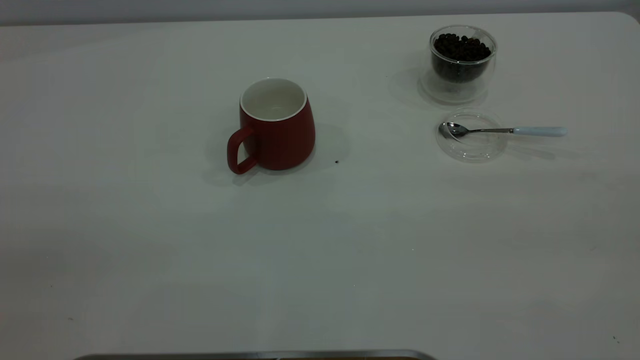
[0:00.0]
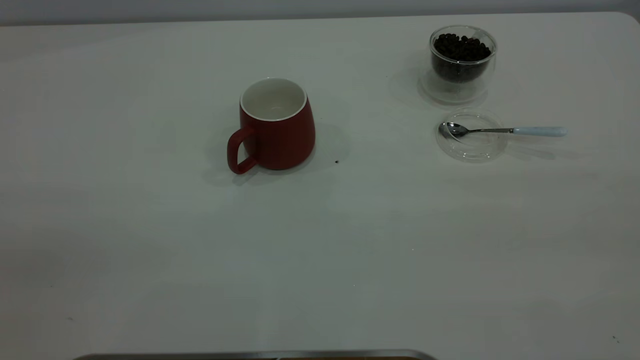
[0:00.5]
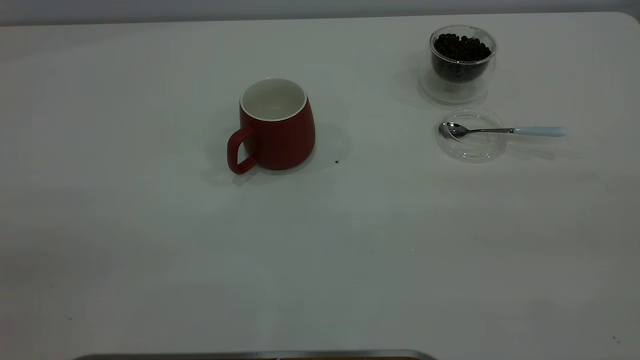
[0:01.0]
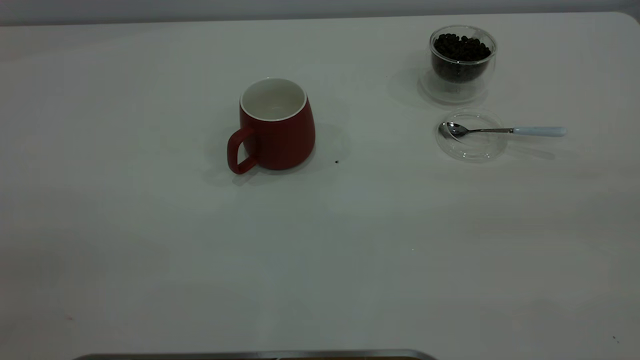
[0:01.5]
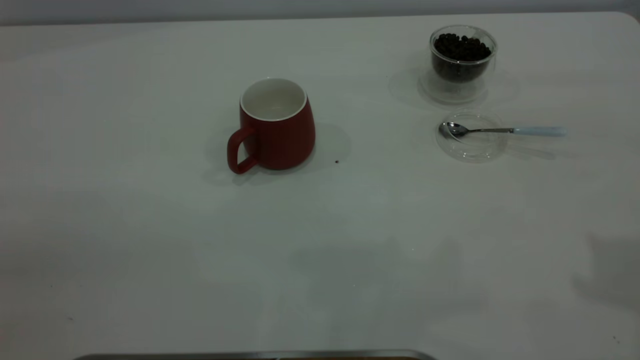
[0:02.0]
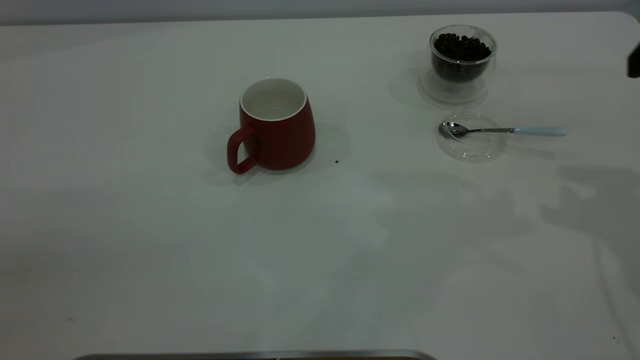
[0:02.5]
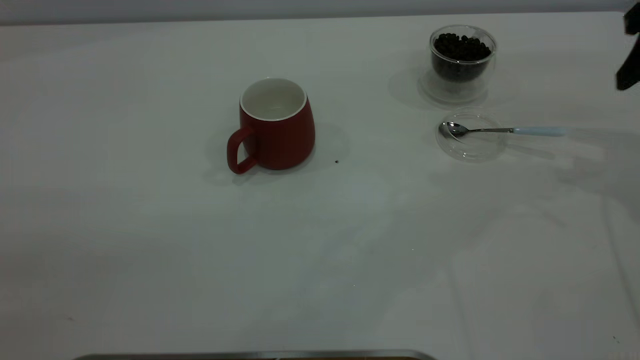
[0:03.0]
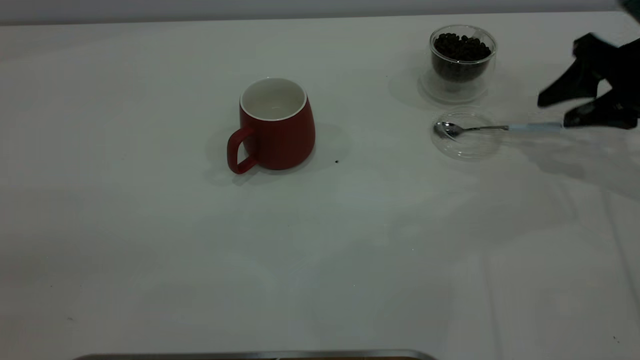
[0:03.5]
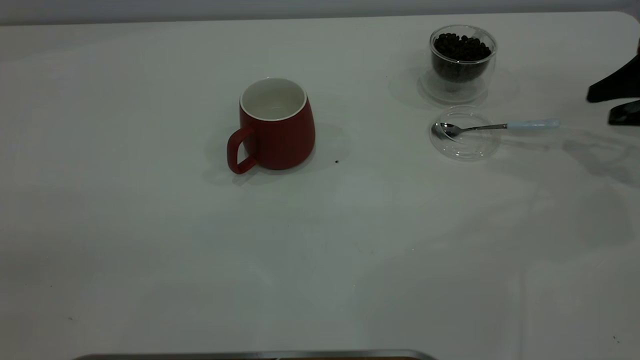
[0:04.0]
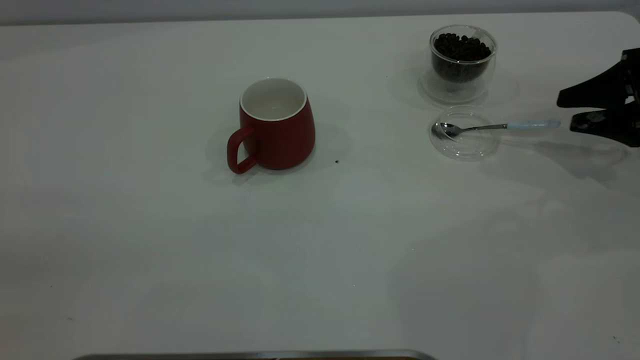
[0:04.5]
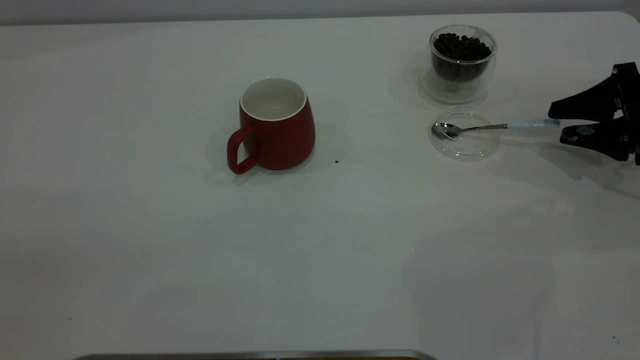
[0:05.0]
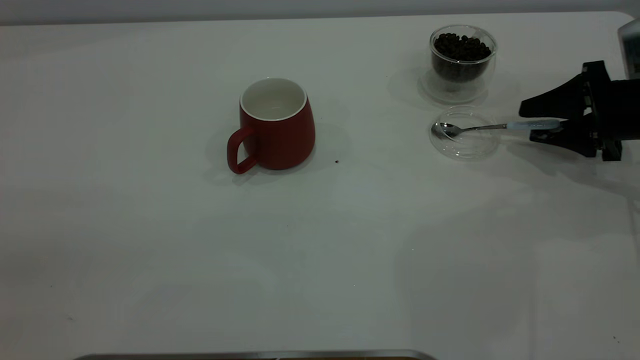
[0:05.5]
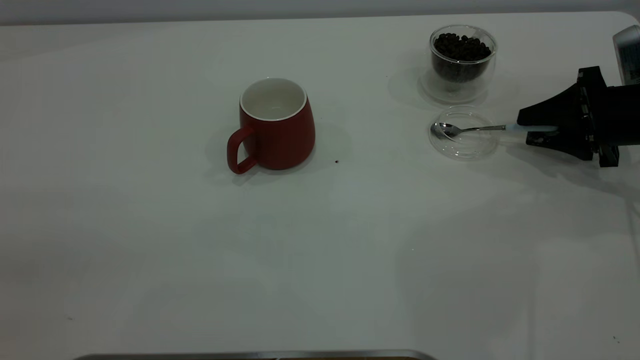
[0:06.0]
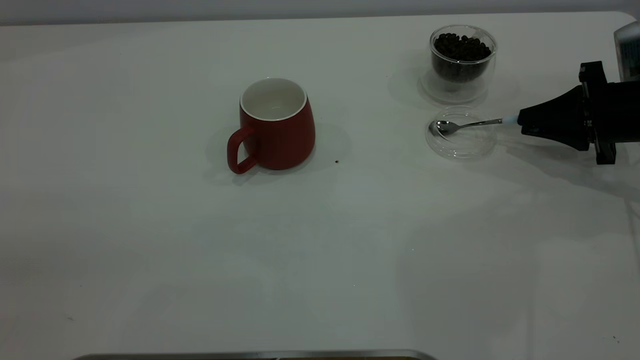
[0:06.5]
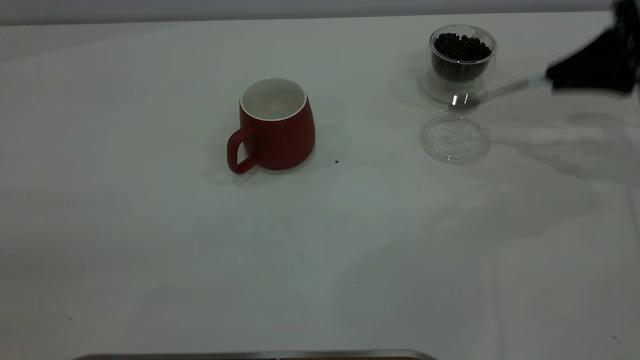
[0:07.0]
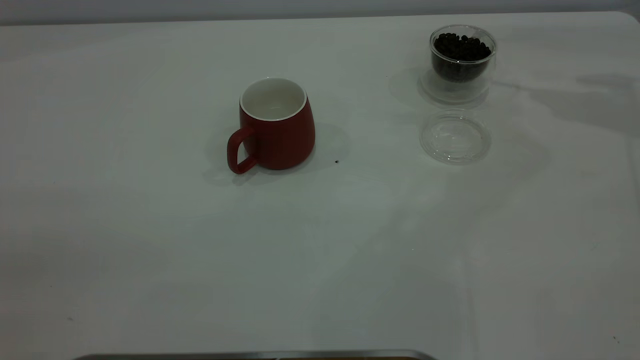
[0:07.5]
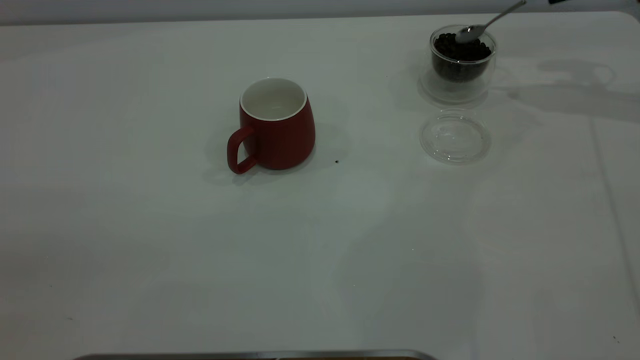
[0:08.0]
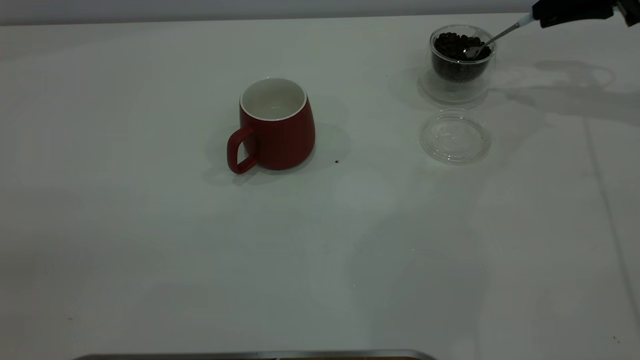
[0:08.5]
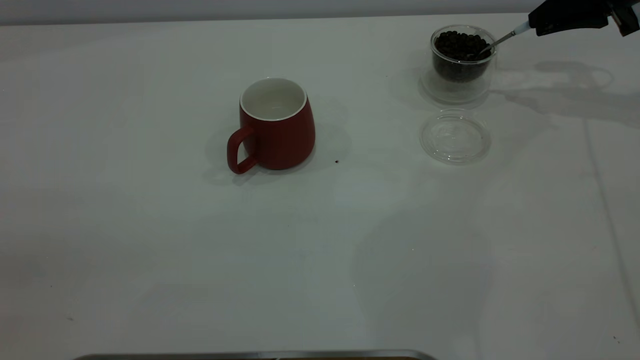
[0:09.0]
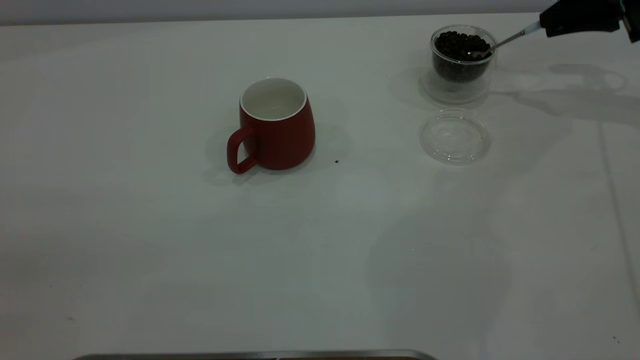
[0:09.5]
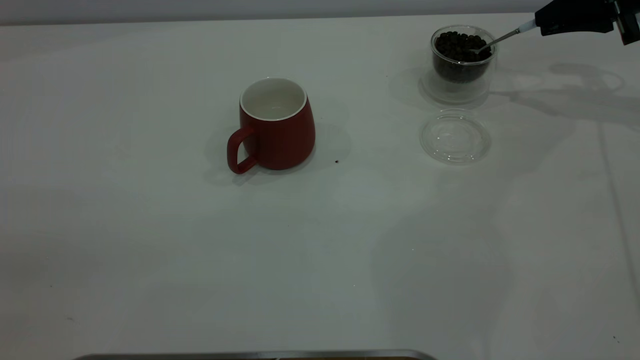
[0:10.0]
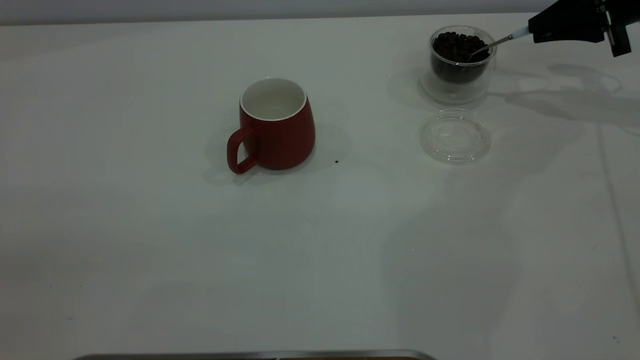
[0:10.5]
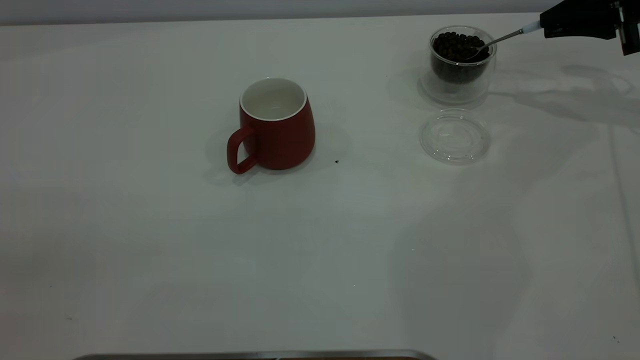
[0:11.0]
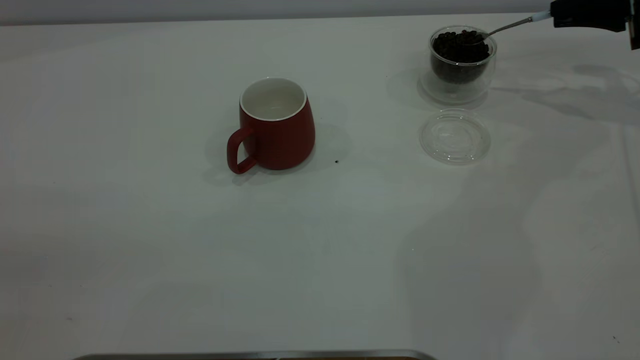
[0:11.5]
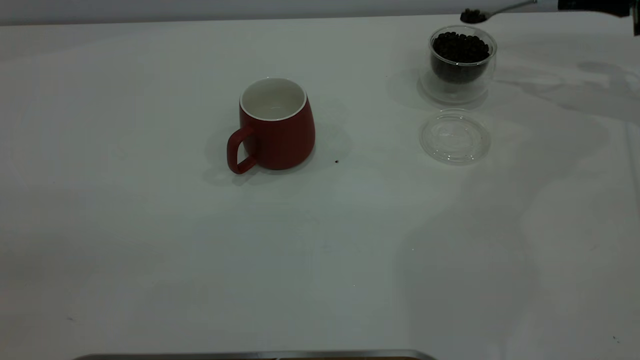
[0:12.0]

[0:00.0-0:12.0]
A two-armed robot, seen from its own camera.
Task of the whole recording: the left gripper place the red cup in the center of the table, the right gripper take the blue spoon from the cup lid and scoop out the coffee beans from the coffee cup and put them into the red cup, the right gripper put the spoon back into the cup lid.
Step, 0:00.0 to 0:06.5: Pick up the spoon.
0:02.0 to 0:04.0: The right gripper goes about 25 cm downward and forward.
0:04.0 to 0:06.0: The right gripper travels downward by about 5 cm.
0:06.0 to 0:08.0: The right gripper moves upward and forward, approximately 20 cm, and closes its fingers.
0:08.0 to 0:12.0: The grippers move only a little.

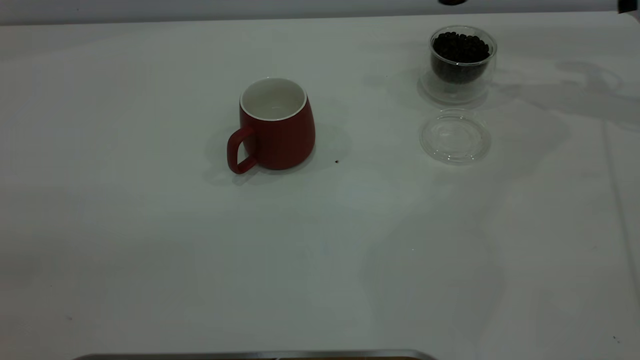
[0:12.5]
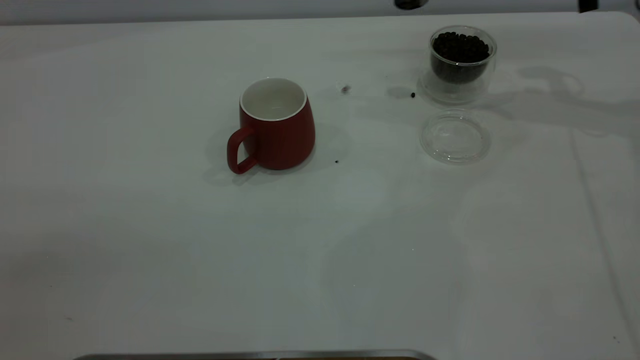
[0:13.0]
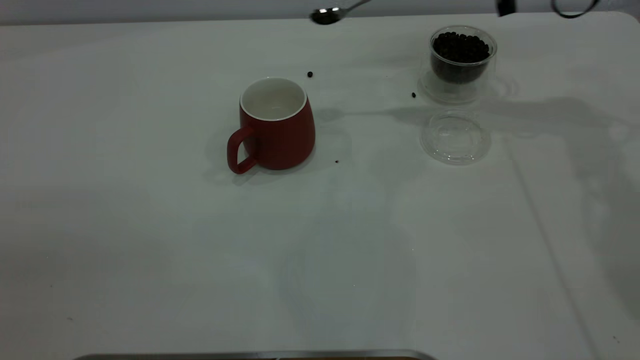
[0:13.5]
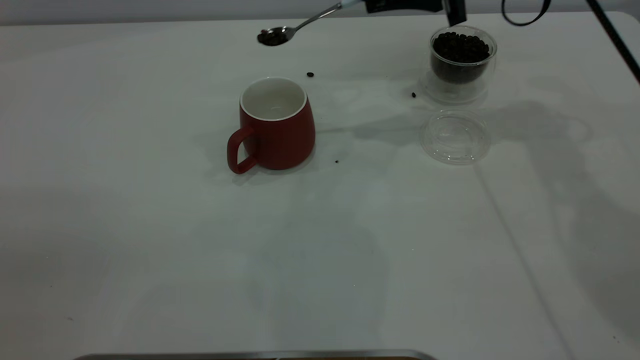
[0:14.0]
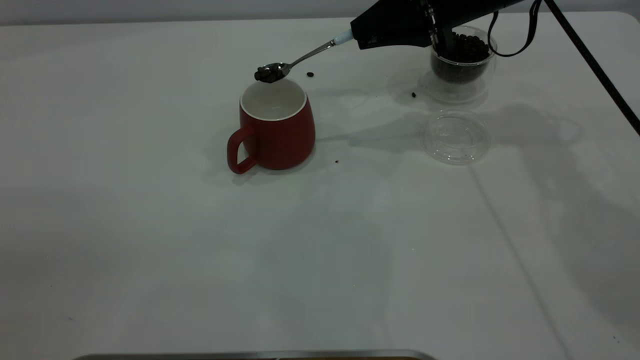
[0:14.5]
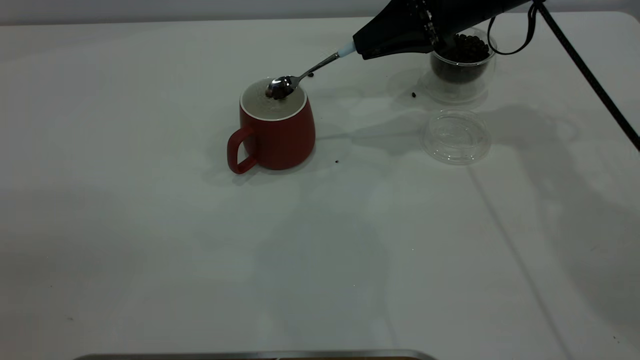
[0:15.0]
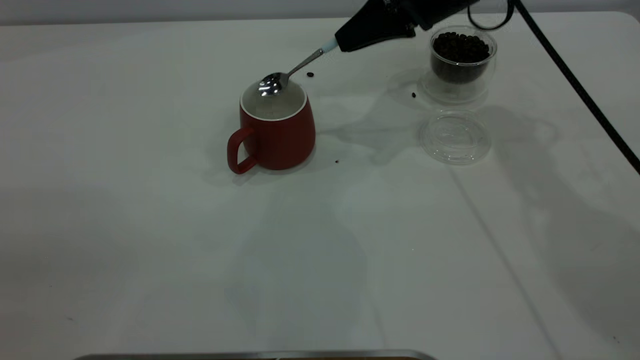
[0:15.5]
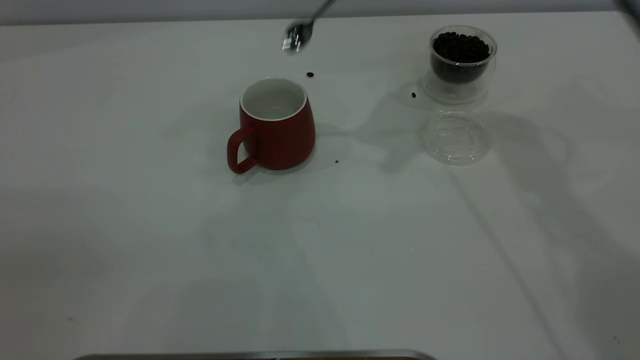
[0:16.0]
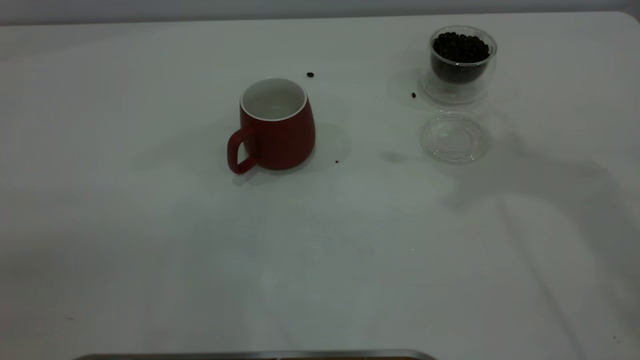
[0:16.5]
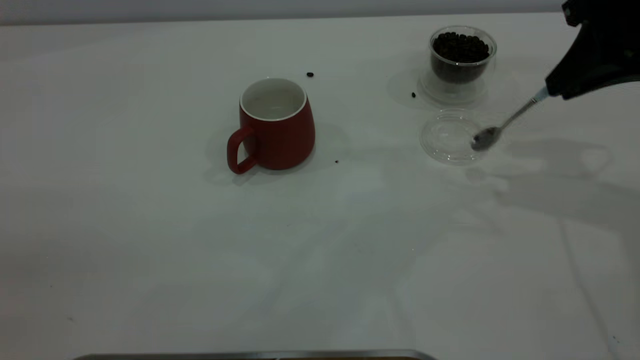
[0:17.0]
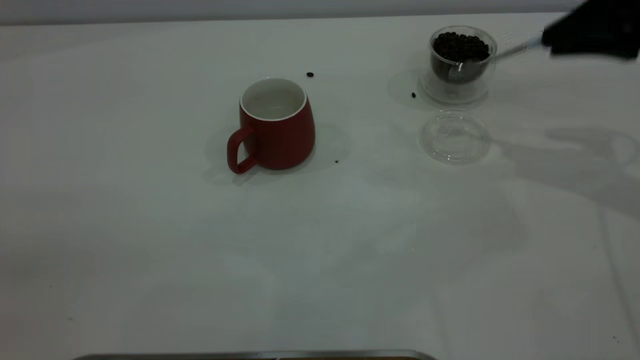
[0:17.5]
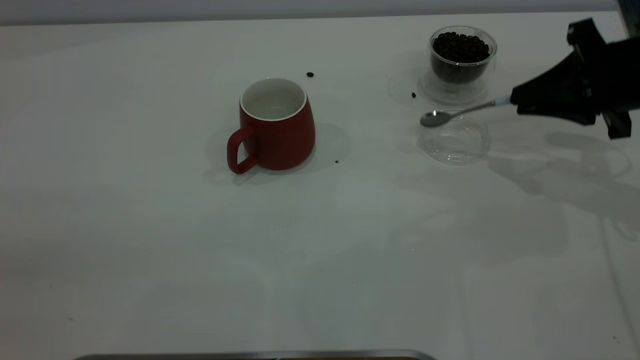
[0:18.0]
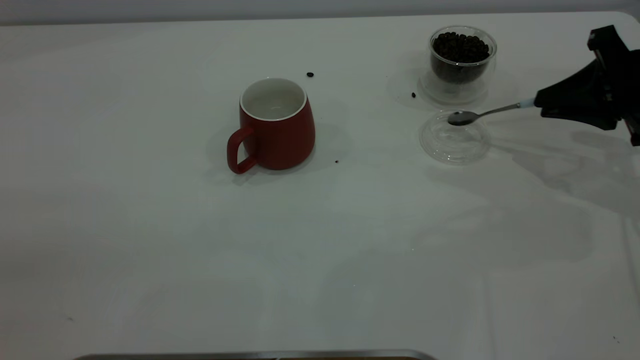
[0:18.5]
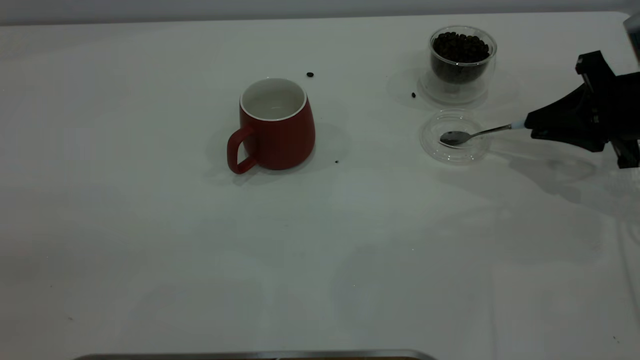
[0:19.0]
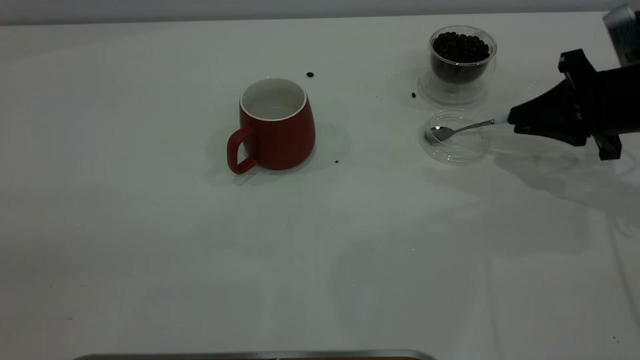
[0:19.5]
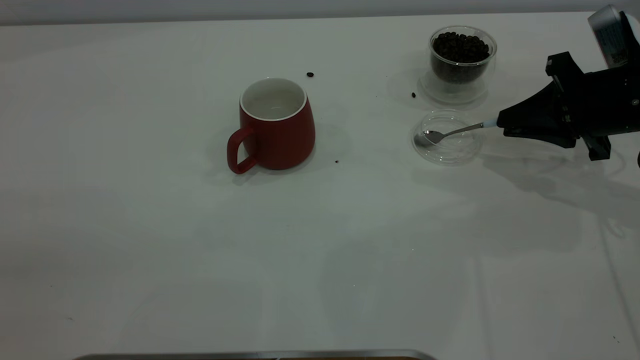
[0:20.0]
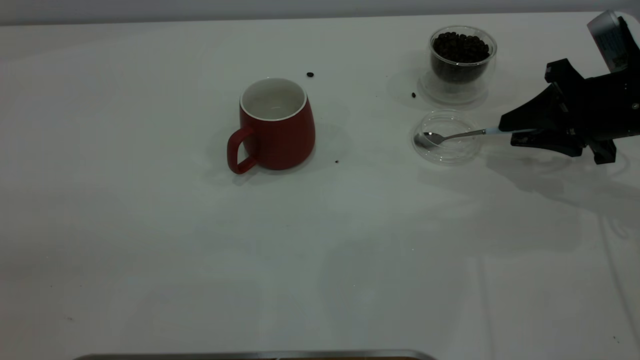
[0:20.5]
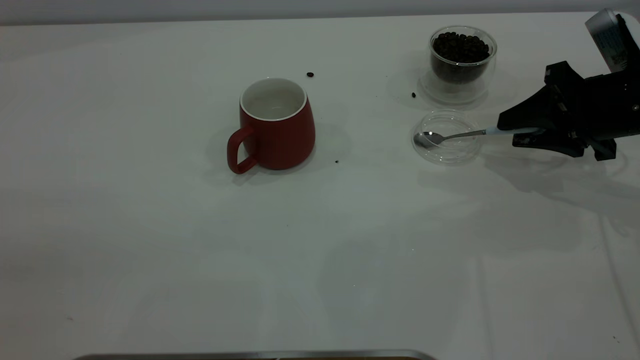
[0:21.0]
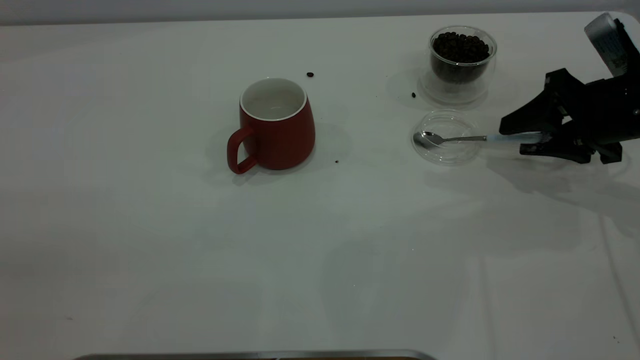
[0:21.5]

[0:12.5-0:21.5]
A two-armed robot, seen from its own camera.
Task of the whole recording: the left gripper place the red cup in the center of the table, the right gripper take the blue spoon from the cup lid and scoop out the coffee beans from the coffee cup and put them into the red cup, the right gripper put the spoon back into the cup lid.
Step, 0:12.5 to 0:15.5: Scoop a spoonful of beans into the cup.
0:12.5 to 0:14.5: The right gripper moves to the left, some 20 cm.
0:14.5 to 0:17.0: The right gripper goes about 15 cm to the right and backward, and moves approximately 25 cm upward and comes back.
0:17.0 to 0:19.5: The right gripper goes about 15 cm downward.
0:19.5 to 0:21.5: The right gripper opens.
